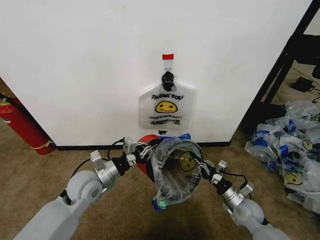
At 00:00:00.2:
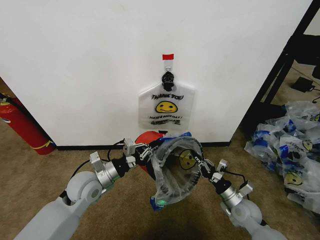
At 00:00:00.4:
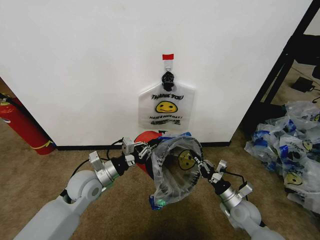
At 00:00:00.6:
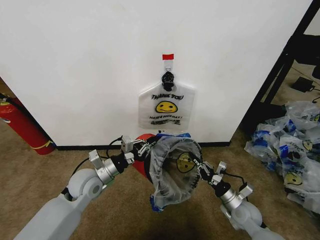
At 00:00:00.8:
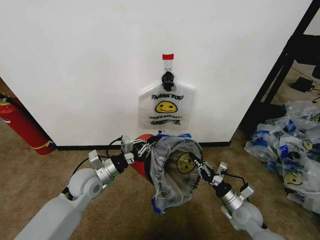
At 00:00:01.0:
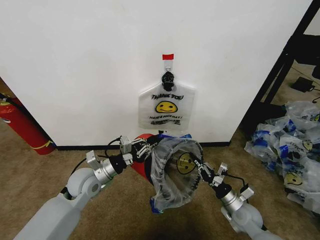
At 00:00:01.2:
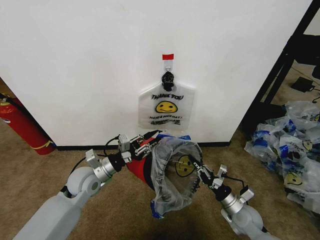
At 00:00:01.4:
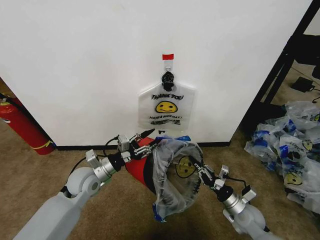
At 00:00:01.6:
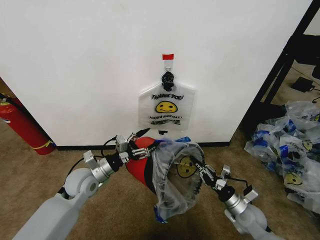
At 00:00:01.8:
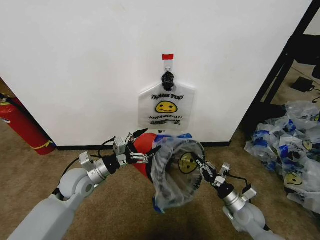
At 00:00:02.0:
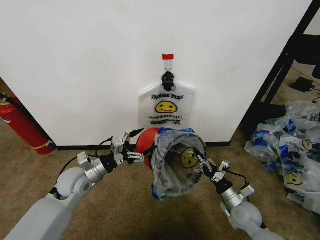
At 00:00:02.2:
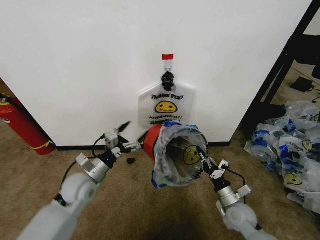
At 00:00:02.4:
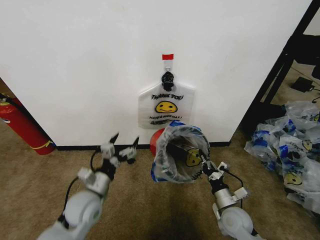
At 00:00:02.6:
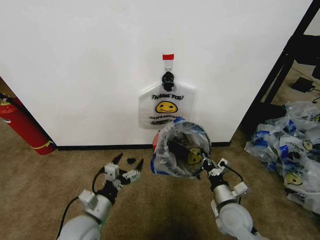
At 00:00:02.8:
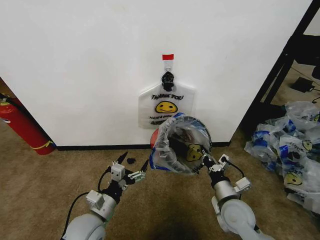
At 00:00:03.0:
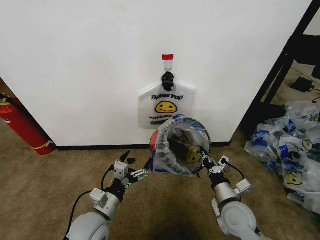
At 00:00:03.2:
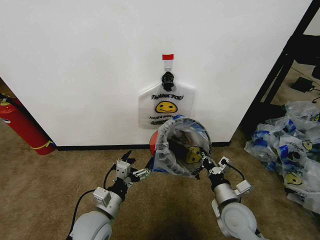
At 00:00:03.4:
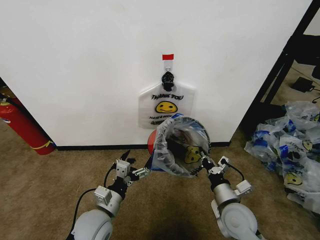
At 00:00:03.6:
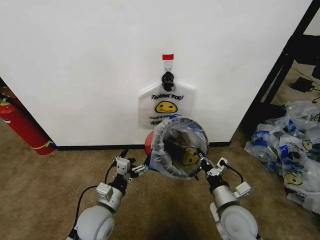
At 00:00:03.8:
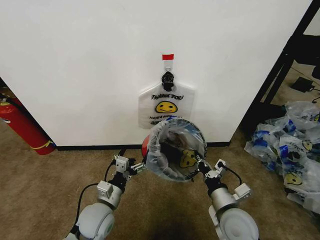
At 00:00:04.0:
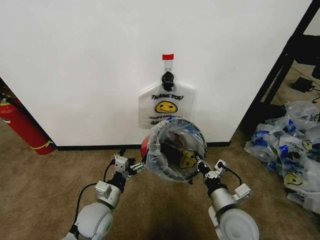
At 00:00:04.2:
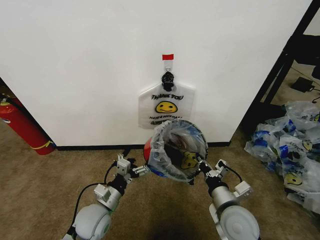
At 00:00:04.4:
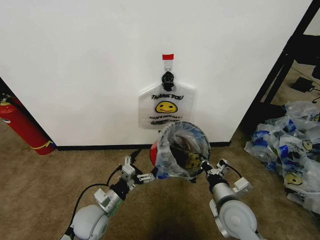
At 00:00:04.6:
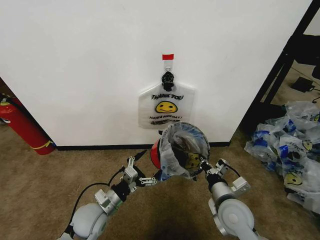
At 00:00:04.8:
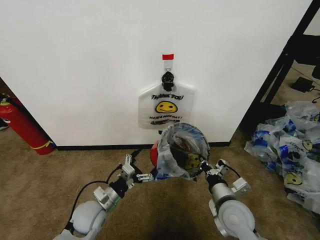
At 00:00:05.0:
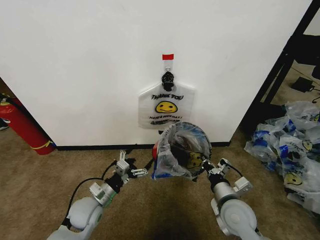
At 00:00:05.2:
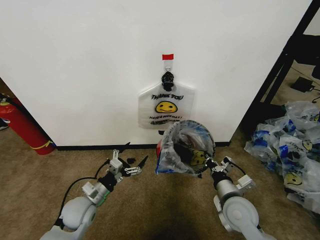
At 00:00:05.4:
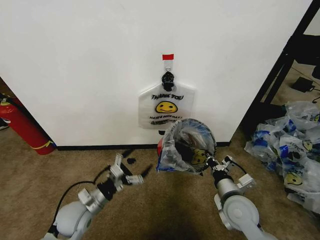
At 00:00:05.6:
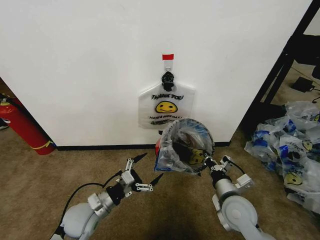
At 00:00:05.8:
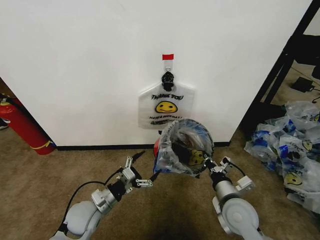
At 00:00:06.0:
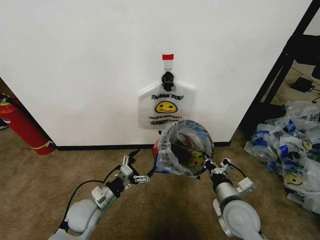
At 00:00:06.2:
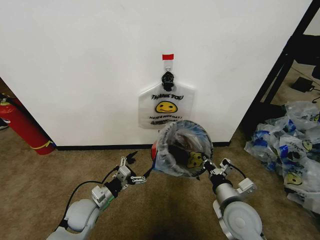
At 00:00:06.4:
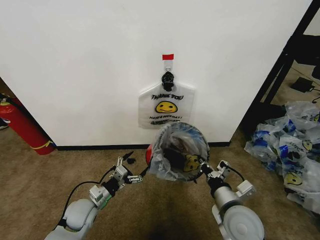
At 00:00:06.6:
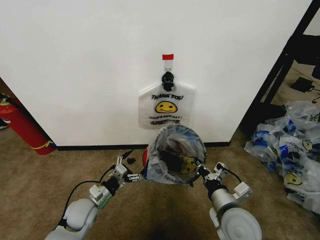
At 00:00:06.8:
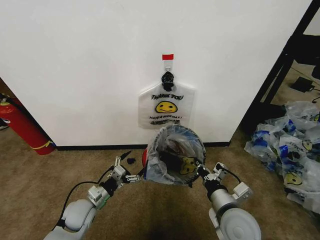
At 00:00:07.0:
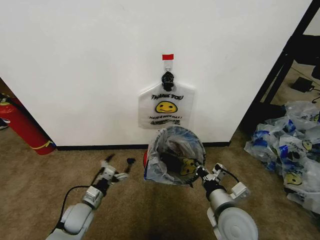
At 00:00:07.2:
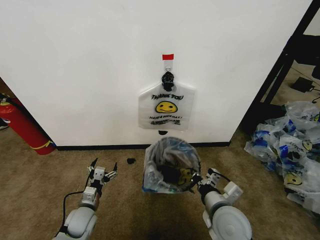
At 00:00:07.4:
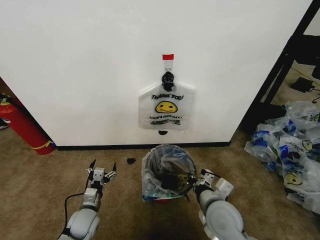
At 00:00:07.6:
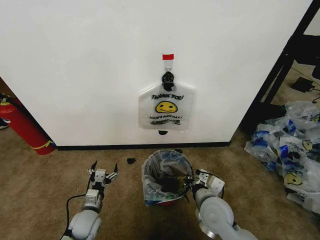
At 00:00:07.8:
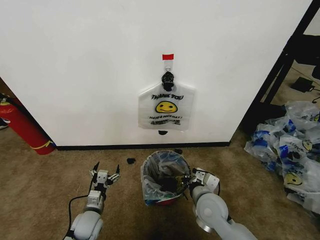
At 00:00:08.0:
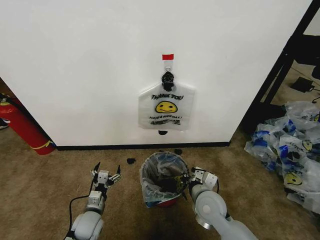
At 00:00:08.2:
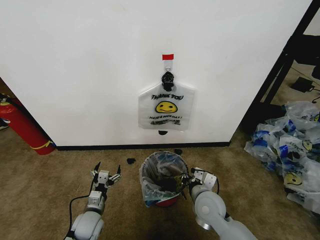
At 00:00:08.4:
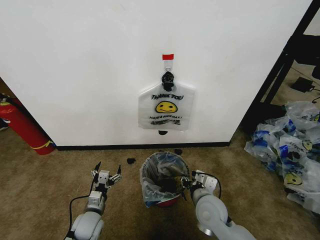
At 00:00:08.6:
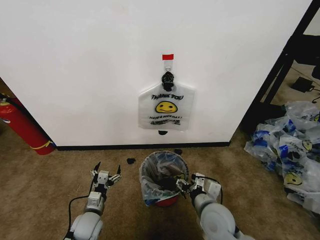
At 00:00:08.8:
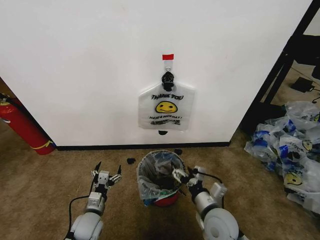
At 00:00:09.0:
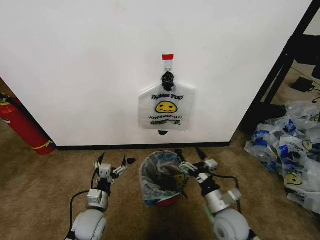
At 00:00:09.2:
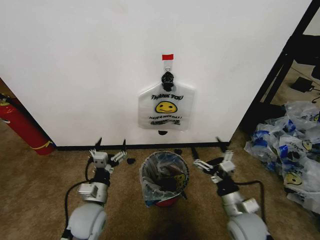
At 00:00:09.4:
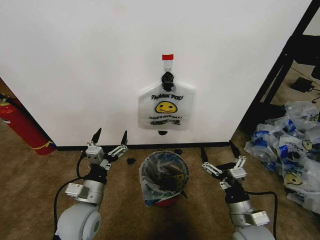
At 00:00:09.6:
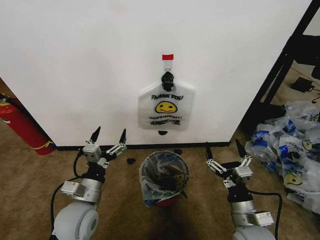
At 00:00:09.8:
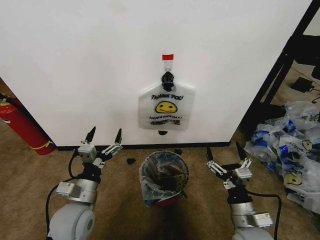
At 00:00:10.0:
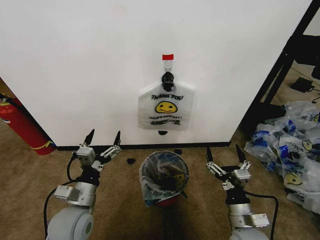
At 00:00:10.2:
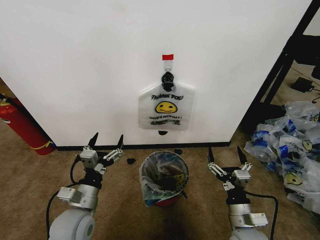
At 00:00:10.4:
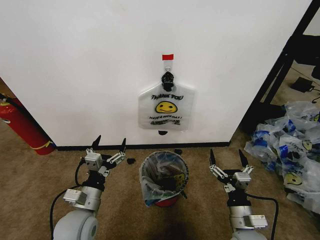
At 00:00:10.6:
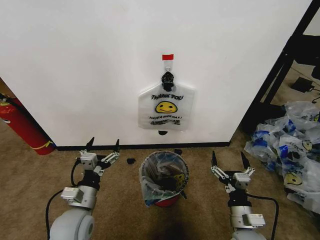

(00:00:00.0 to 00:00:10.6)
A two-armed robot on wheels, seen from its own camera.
Task of the whole recording: Pick up the garbage bag from the wall and place it over the trash bin.
00:00:00.0 - 00:00:01.6: The left gripper opens its fingers.
00:00:01.6 - 00:00:03.0: The right gripper heads upward and to the left, covering about 10 cm. Meanwhile the left gripper moves backward and to the right, roughly 15 cm.
00:00:03.0 - 00:00:04.6: The left gripper moves approximately 5 cm.
00:00:04.6 - 00:00:06.0: The grippers make only small movements.
00:00:06.0 - 00:00:07.6: The left gripper shifts approximately 10 cm downward; the right gripper is displaced to the left by approximately 5 cm.
00:00:07.6 - 00:00:09.0: The left gripper changes place by approximately 5 cm. The right gripper ends up some 5 cm from where it was, and opens.
00:00:09.0 - 00:00:10.6: The right gripper travels backward by roughly 5 cm, while the left gripper is displaced upward by about 10 cm.
